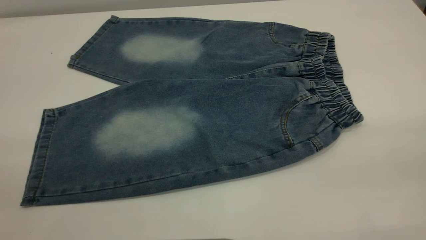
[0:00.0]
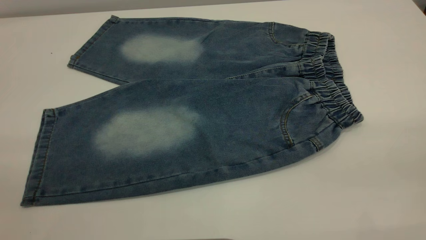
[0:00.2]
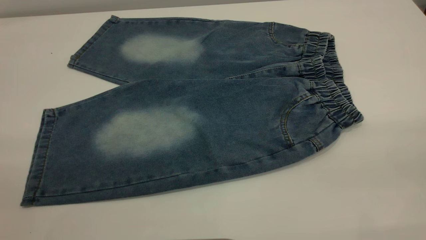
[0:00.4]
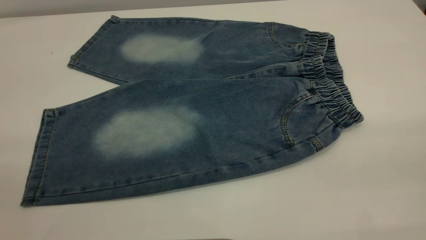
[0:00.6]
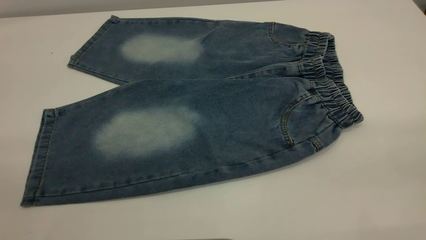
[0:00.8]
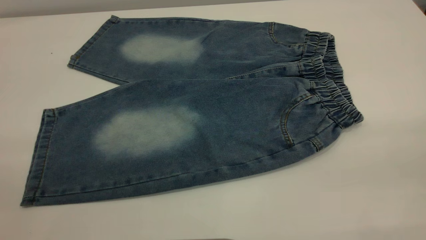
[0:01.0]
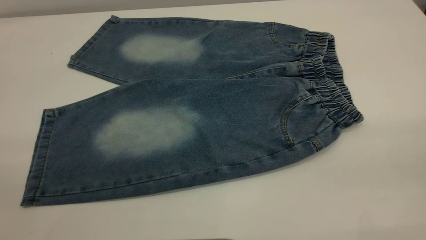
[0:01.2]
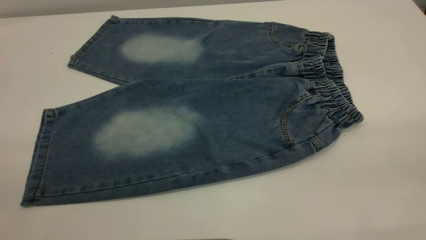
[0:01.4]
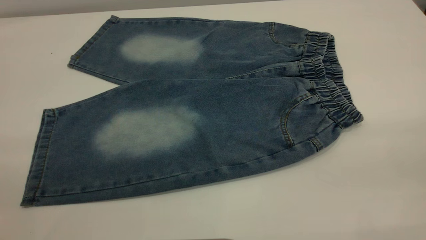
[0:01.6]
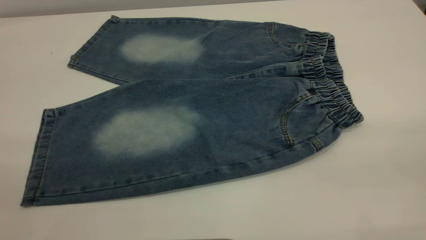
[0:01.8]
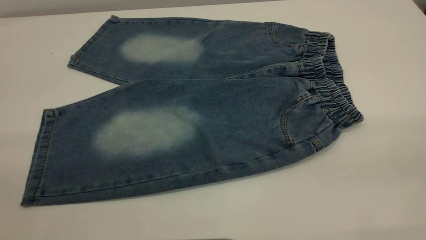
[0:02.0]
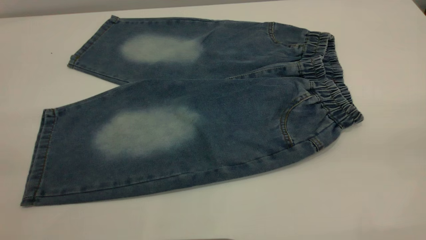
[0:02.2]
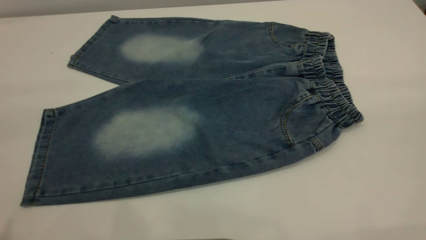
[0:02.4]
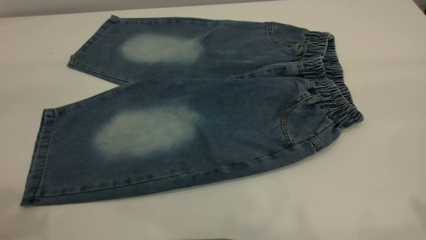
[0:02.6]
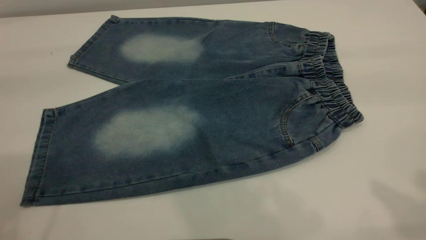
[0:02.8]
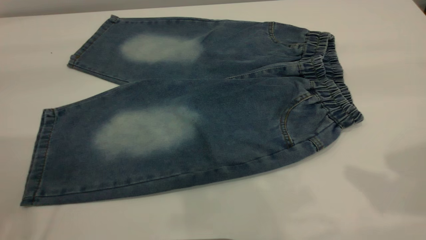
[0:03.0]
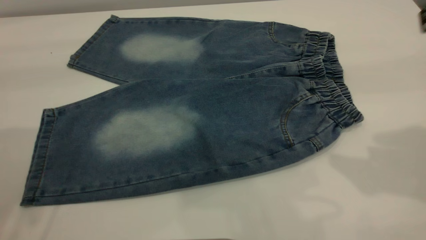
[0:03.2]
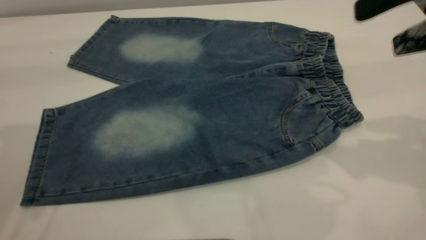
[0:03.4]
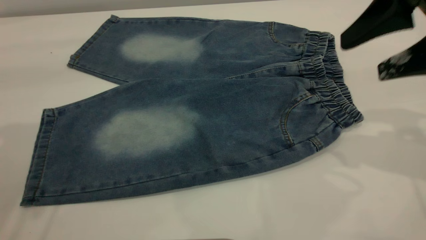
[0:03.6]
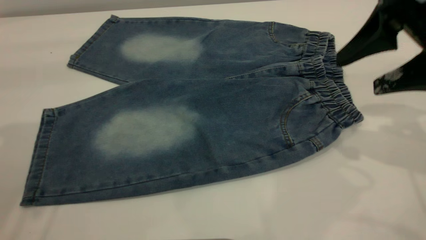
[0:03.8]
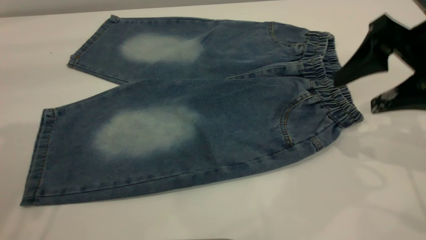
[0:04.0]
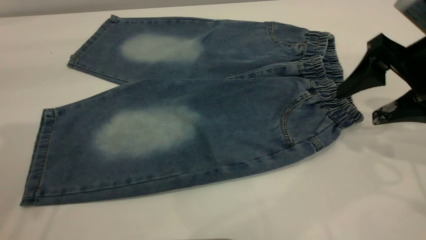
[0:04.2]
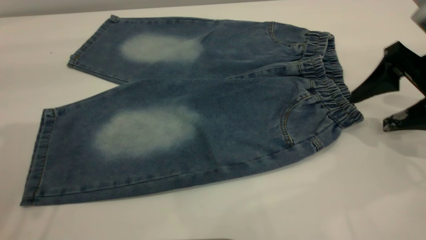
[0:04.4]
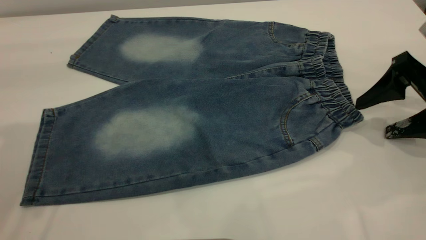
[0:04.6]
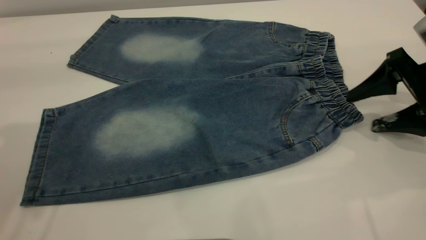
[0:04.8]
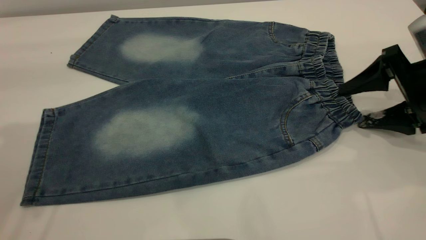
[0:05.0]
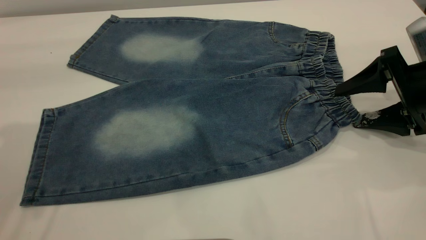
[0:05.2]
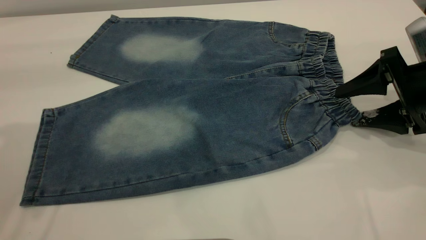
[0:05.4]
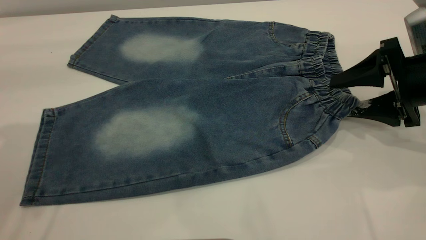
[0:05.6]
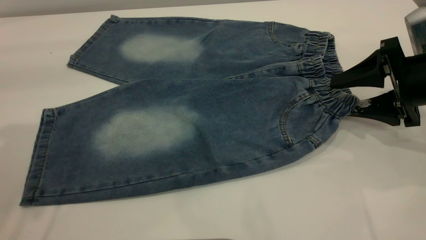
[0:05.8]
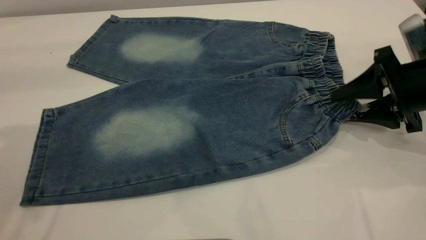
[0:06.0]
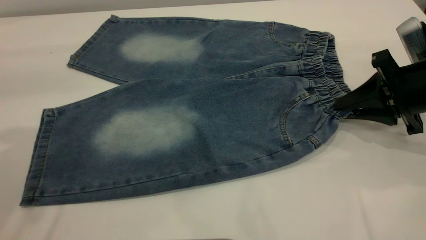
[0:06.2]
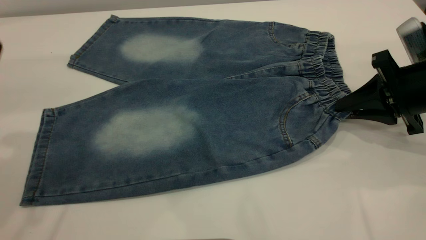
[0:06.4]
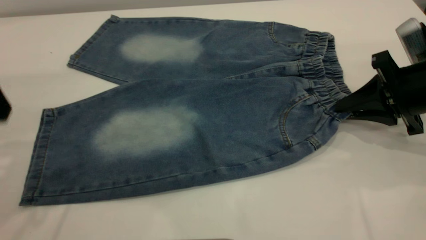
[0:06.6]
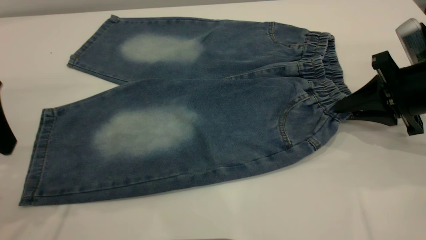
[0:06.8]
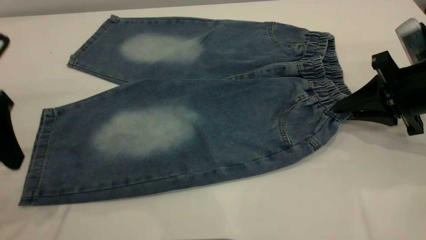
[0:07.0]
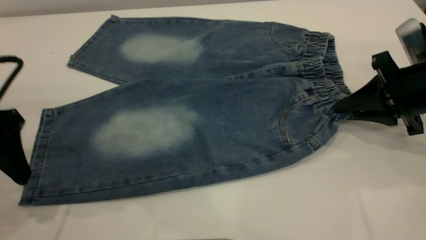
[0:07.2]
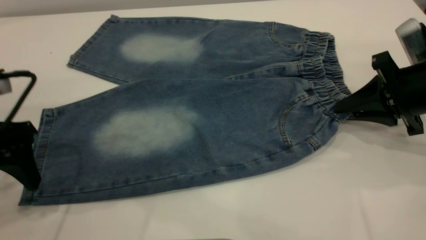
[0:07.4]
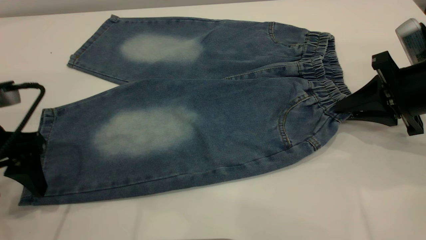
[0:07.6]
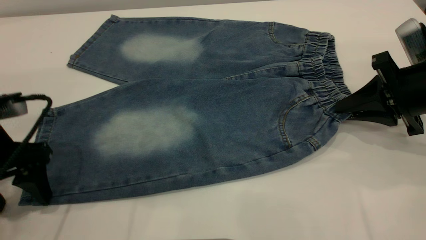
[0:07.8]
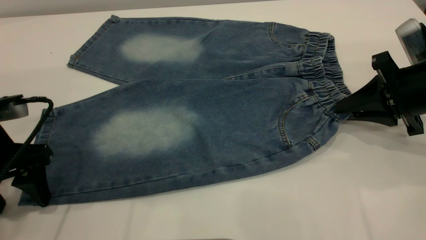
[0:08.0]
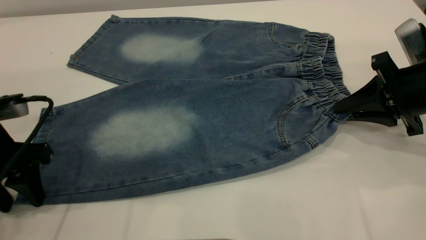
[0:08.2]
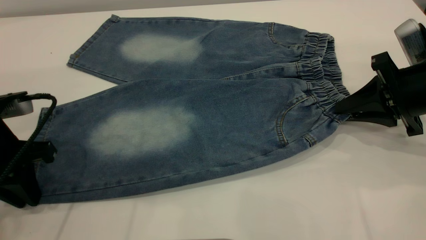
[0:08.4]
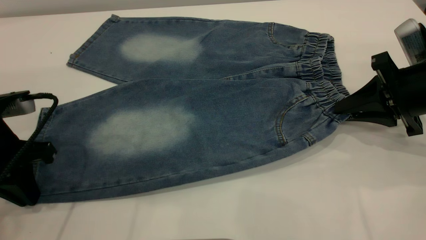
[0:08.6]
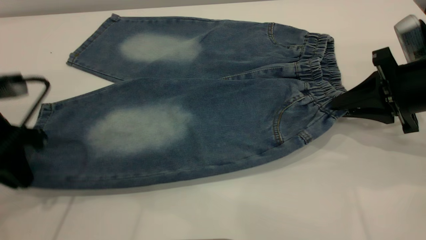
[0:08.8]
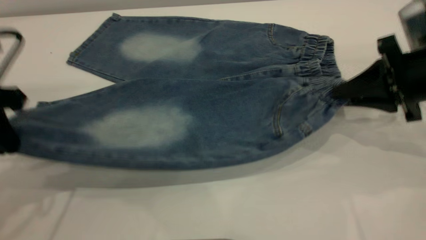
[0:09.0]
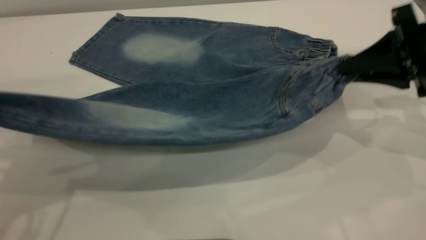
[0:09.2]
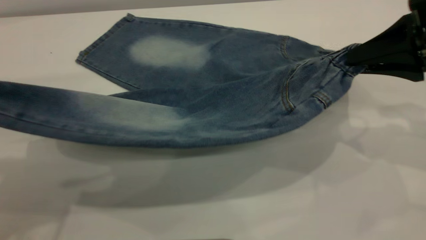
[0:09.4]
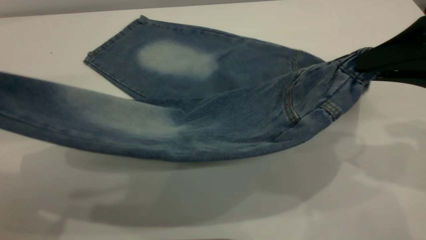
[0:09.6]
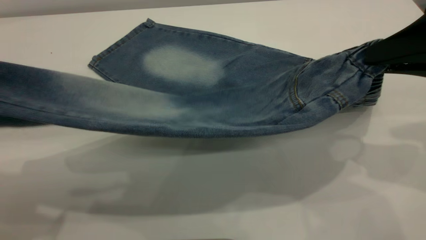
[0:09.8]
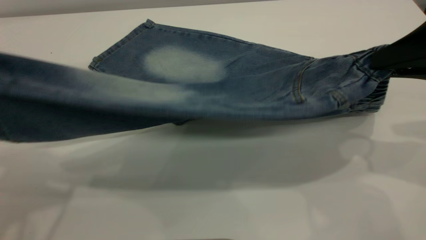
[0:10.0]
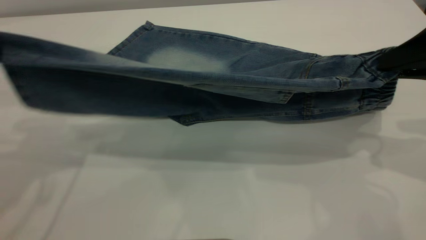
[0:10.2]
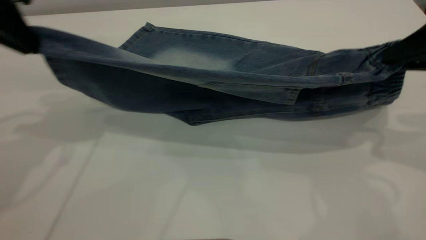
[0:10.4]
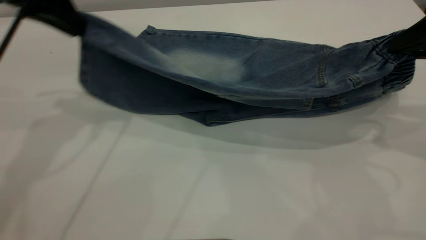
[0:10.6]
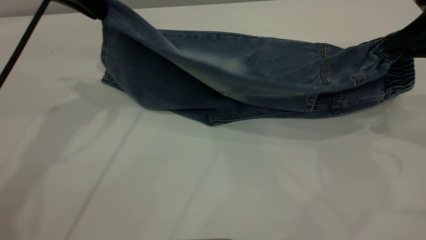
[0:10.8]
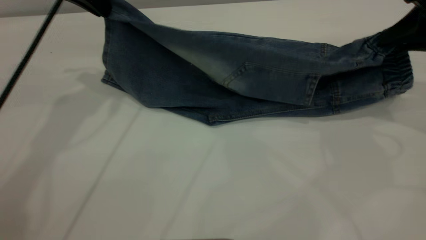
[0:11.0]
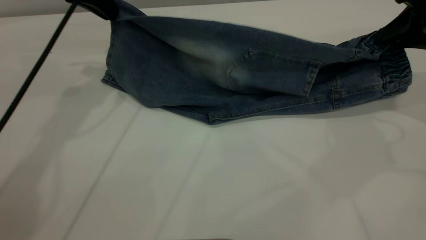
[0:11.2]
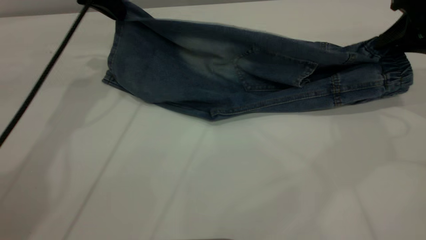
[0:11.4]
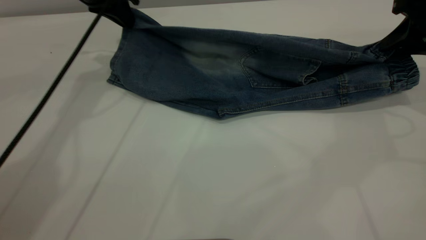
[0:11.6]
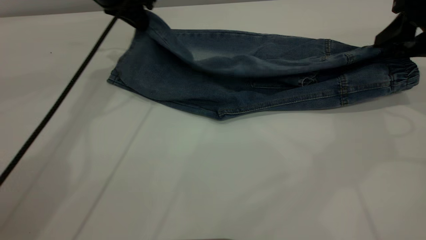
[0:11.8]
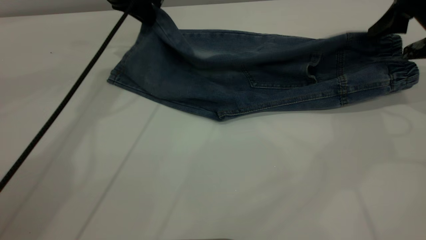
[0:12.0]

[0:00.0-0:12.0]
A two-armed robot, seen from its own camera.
0:00.0 to 0:01.6: Both grippers stay about where they are.
0:03.0 to 0:04.4: The right gripper is displaced downward and forward by about 20 cm.
0:04.4 to 0:06.0: The right gripper closes.
0:06.0 to 0:07.6: The right gripper closes up, while the left gripper heads downward, covering about 20 cm.
0:07.6 to 0:09.0: The left gripper travels upward by about 10 cm, and closes up.
0:09.0 to 0:10.4: The left gripper heads forward and upward, covering about 10 cm. The right gripper moves upward, approximately 10 cm.
0:10.4 to 0:12.0: The left gripper is displaced forward and to the right by some 20 cm. The right gripper travels forward by roughly 10 cm, and opens up.

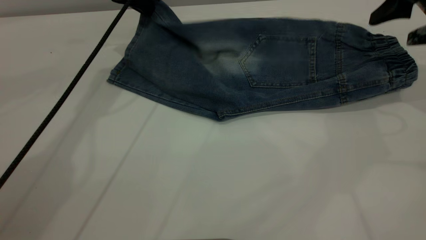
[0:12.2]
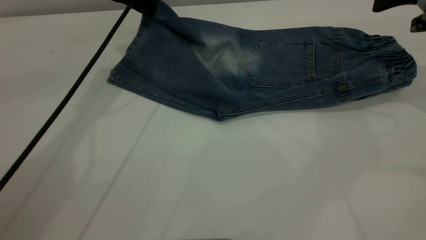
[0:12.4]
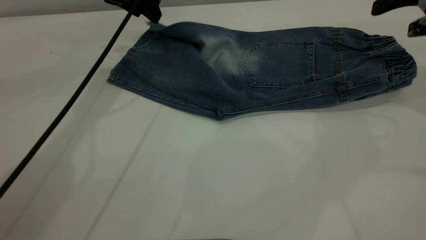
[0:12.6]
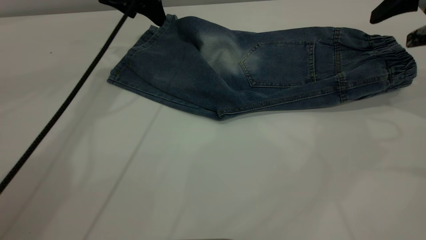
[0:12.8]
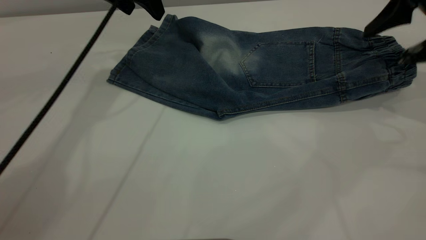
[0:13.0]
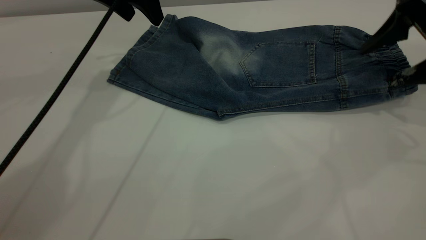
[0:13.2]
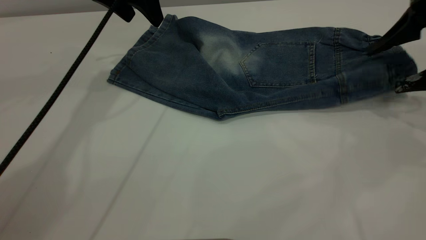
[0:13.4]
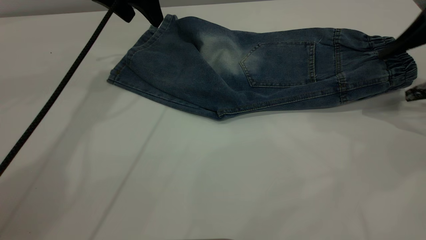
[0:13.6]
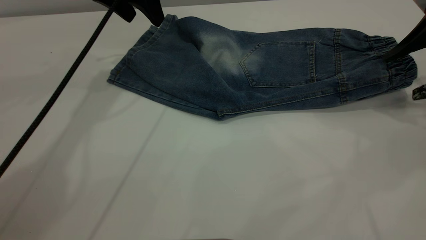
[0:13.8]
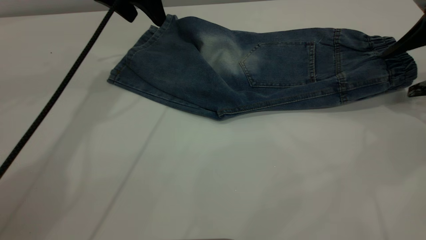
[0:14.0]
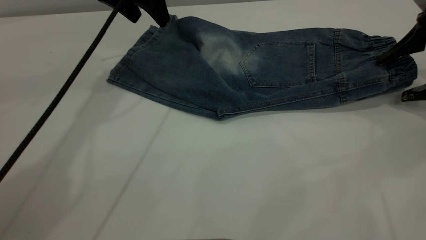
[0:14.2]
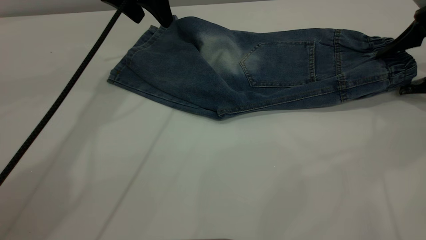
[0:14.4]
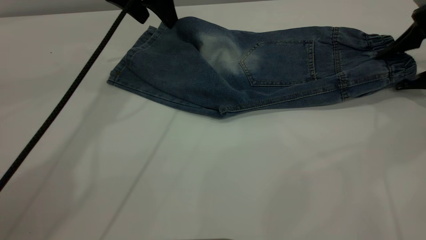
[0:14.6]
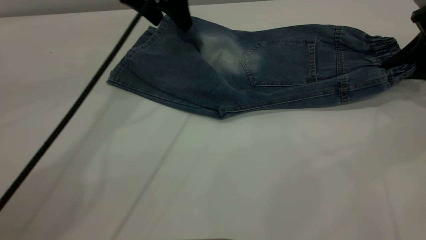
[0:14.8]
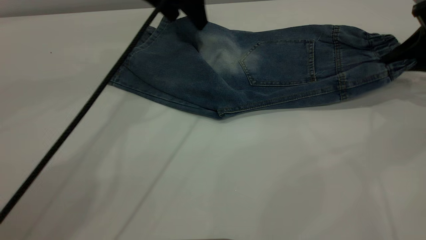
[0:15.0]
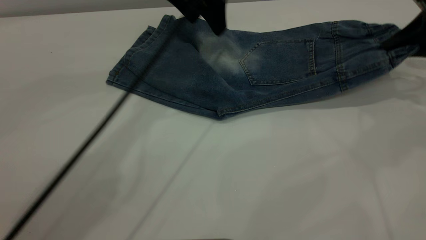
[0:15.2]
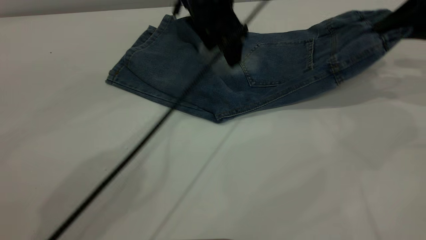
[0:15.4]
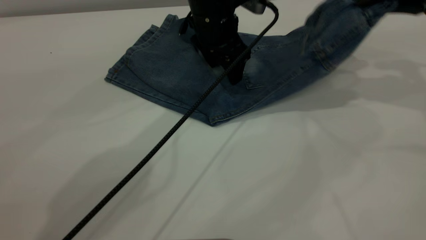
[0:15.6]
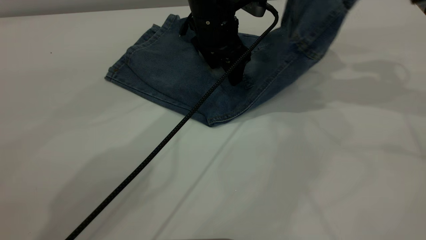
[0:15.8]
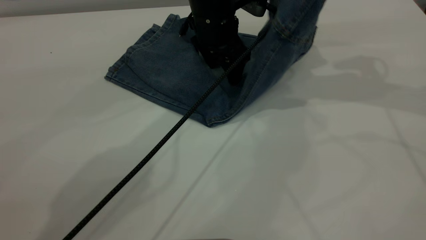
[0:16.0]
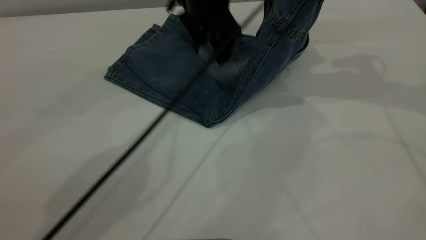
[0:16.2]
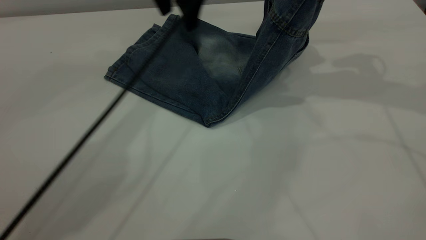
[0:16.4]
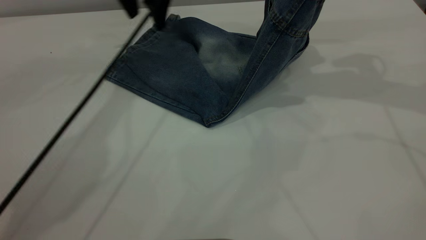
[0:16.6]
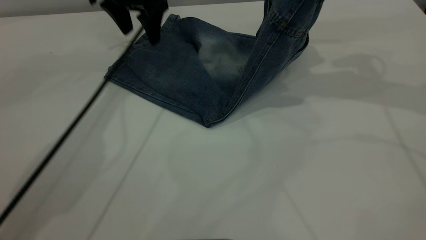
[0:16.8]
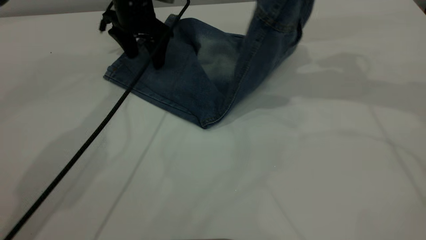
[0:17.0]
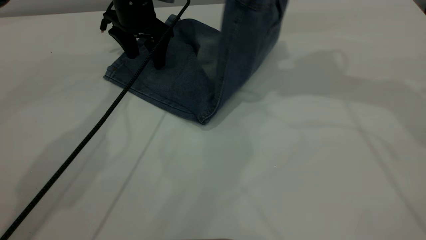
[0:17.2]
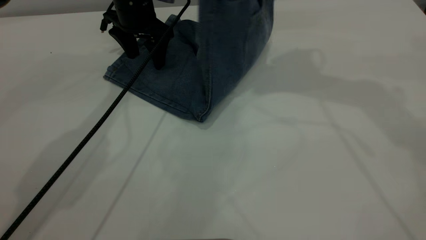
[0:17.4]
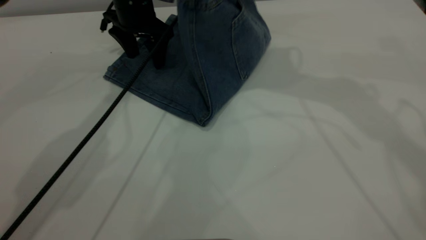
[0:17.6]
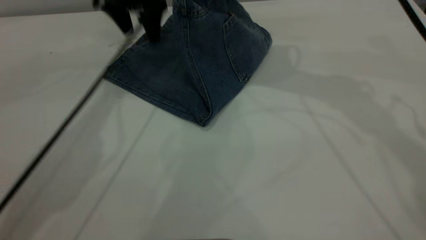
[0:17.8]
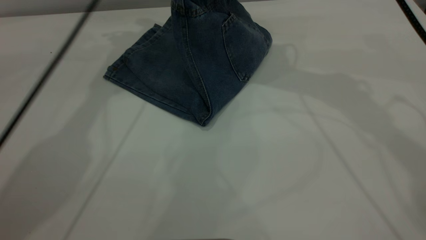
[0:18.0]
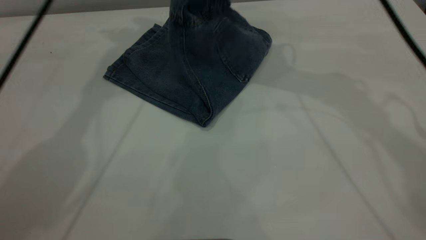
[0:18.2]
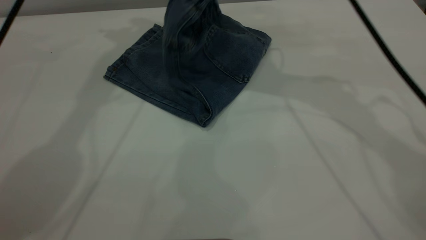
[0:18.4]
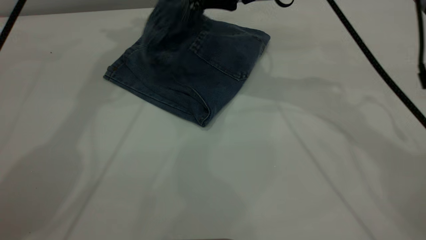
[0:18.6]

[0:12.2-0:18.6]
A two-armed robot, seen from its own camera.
0:12.2 to 0:13.8: The right gripper shifts by approximately 5 cm. The left gripper opens.
0:13.8 to 0:15.4: The left gripper goes about 15 cm to the right and downward, while the right gripper moves approximately 5 cm, and closes up.
0:15.4 to 0:17.0: The left gripper heads to the left and forward, covering approximately 15 cm, while the right gripper heads to the left and upward, covering approximately 15 cm.
0:17.0 to 0:18.6: The right gripper moves to the left and downward, about 15 cm, and opens up, while the left gripper moves upward, about 25 cm.
